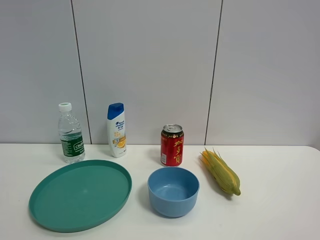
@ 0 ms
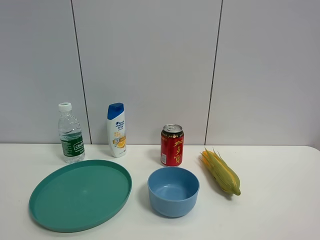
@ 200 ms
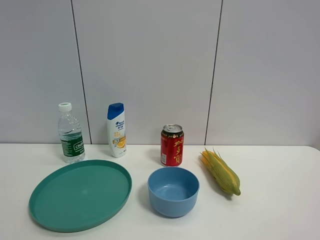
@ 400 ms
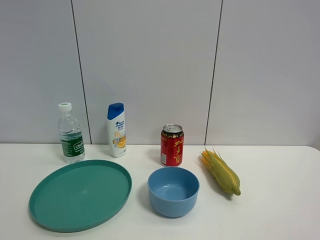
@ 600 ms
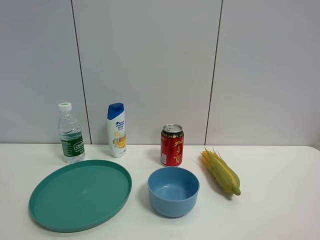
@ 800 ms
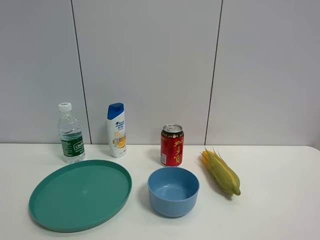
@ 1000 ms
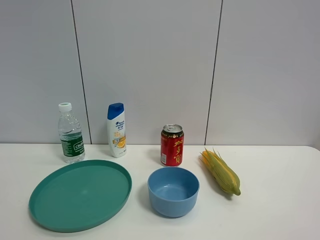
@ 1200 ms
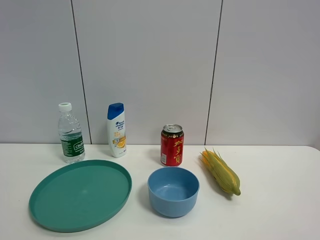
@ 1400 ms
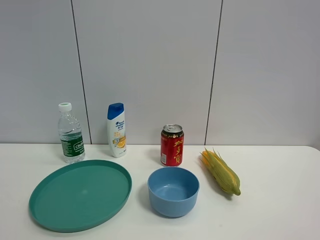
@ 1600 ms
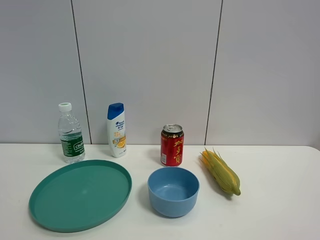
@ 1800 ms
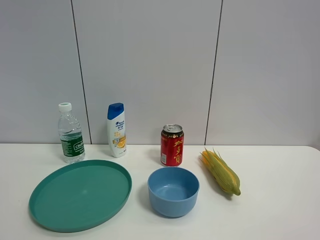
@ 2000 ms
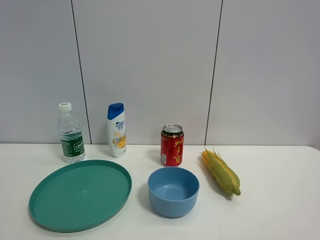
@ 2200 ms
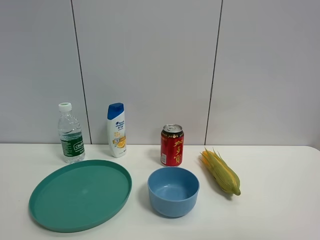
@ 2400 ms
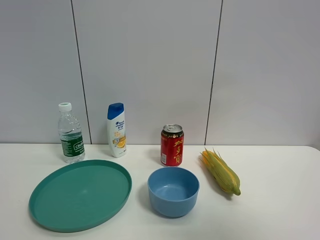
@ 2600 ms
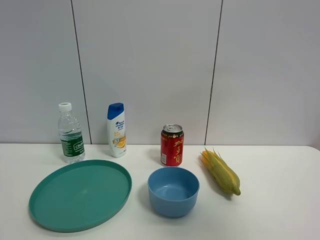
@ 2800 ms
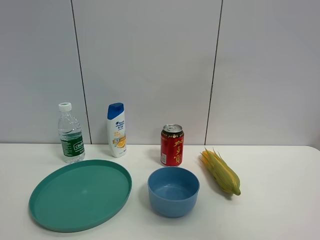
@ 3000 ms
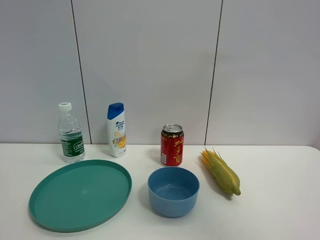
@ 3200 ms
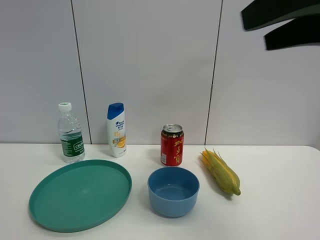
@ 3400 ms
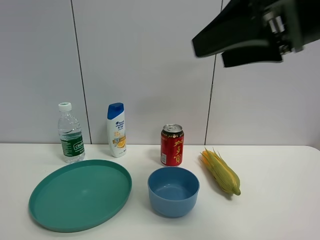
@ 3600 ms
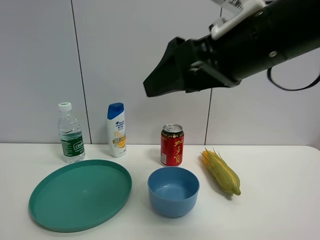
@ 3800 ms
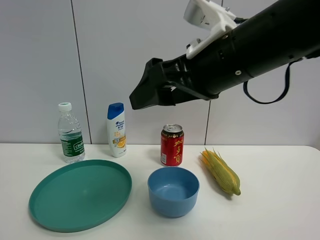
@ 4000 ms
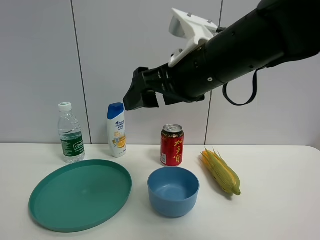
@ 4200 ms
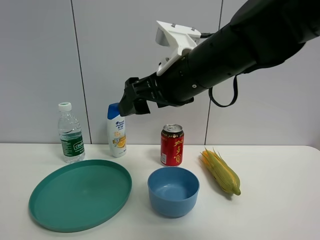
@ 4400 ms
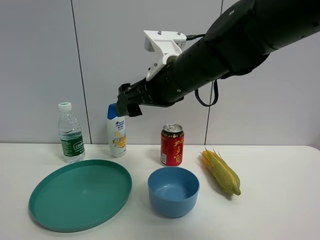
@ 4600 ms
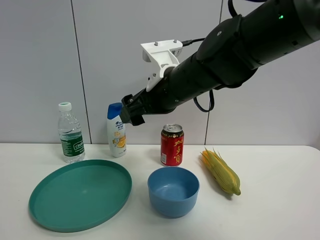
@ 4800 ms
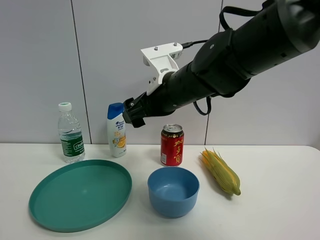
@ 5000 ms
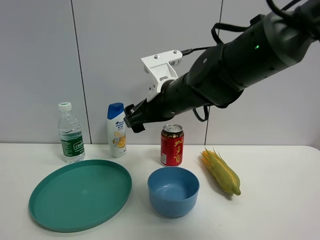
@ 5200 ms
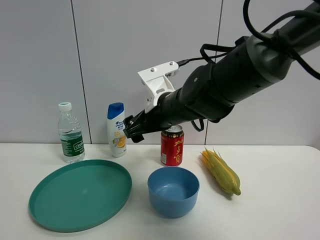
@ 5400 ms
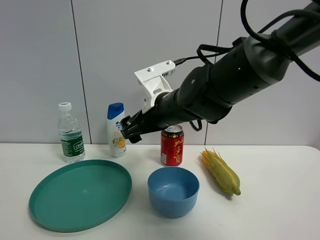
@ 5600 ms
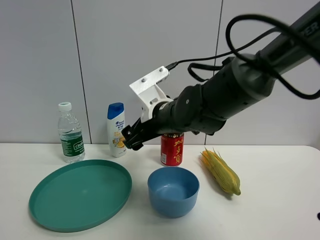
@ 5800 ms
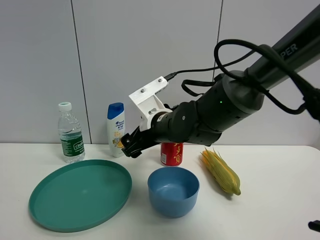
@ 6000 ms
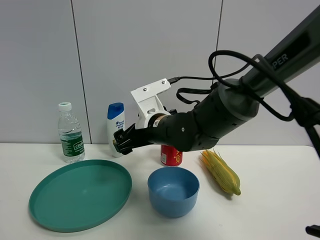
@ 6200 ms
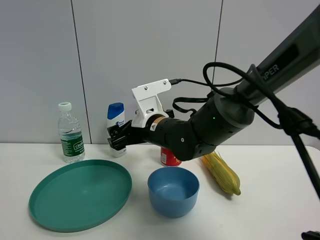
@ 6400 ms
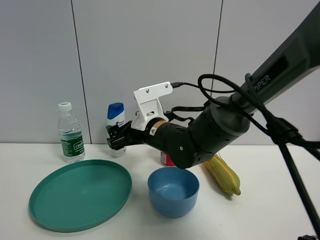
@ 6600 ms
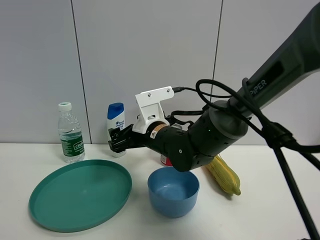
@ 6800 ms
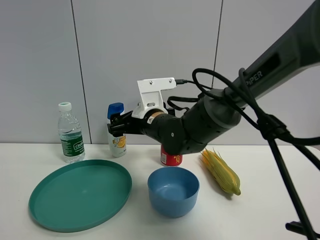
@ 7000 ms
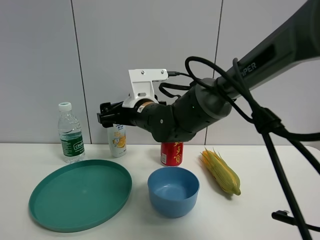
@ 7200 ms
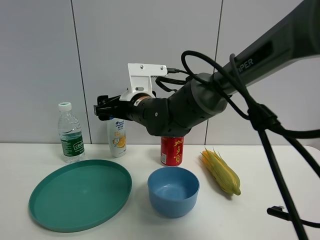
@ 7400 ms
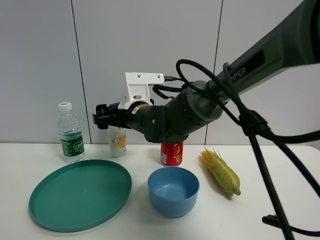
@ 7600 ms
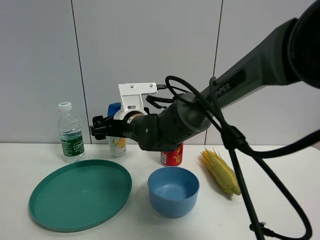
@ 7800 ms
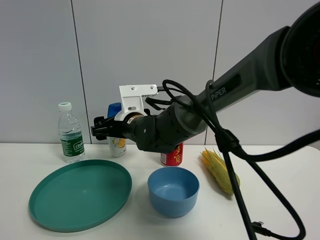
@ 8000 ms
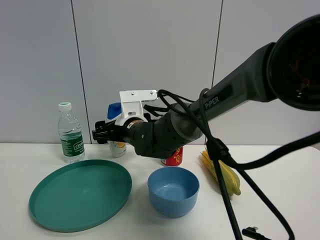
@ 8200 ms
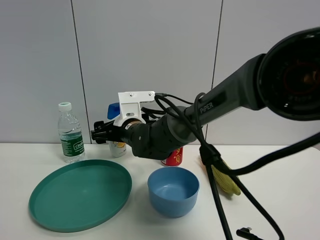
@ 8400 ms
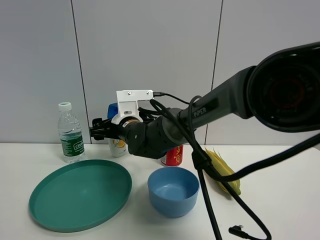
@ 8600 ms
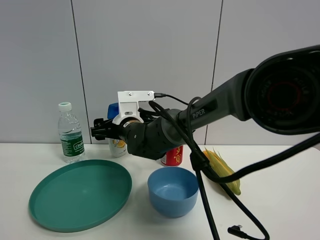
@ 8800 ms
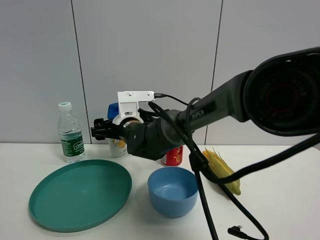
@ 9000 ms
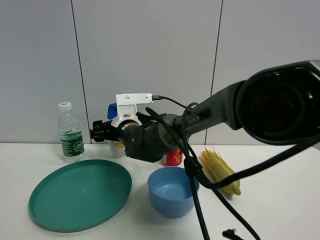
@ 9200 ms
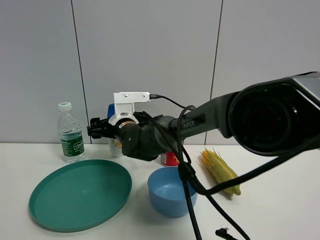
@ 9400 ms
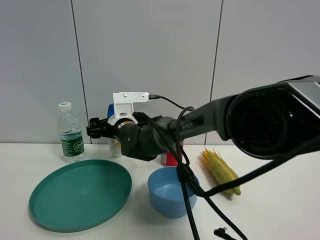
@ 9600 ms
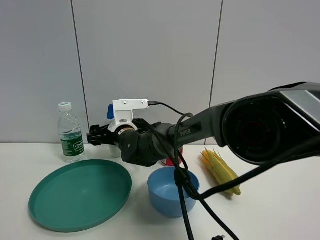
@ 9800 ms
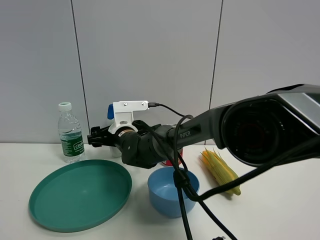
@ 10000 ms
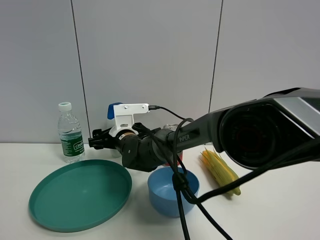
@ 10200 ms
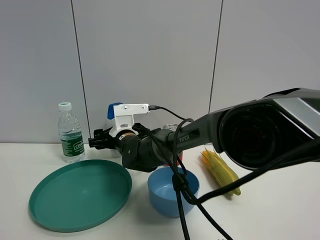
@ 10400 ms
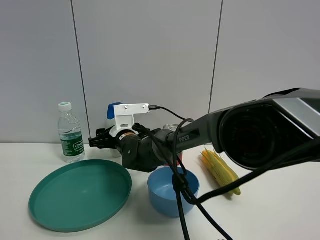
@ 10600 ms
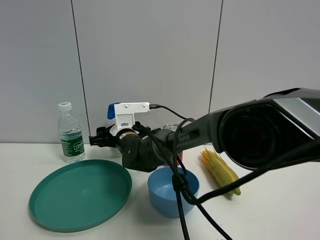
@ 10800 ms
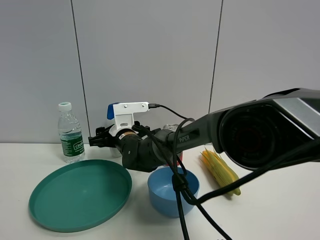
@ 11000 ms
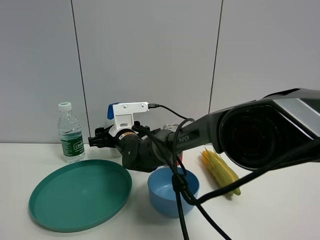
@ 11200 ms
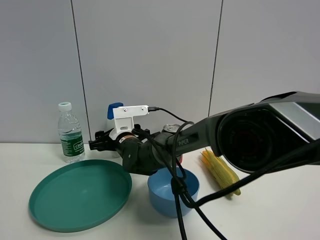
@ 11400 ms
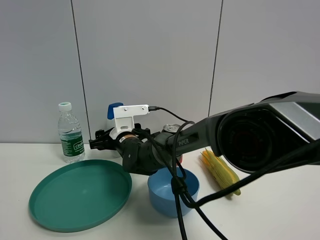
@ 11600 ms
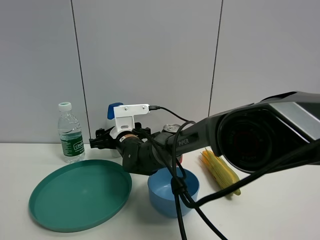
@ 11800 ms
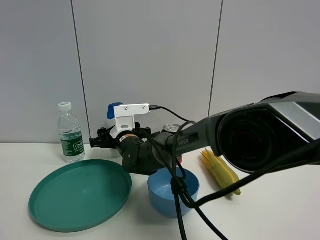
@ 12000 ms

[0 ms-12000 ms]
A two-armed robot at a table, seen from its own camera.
Task of the whole recording: the gripper move the object.
0 ms to 1600 ms: Both grippers stay put.
1600 ms to 3000 ms: The right gripper shifts some 20 cm forward and upward.
3000 ms to 4400 ms: The right gripper heads to the left, forward and downward, covering some 30 cm.
4400 ms to 6000 ms: The right gripper travels downward and forward by roughly 15 cm.
6000 ms to 7600 ms: The right gripper goes approximately 5 cm to the left.
7600 ms to 9000 ms: The right gripper moves some 5 cm.
10400 ms to 12000 ms: Neither gripper changes place.

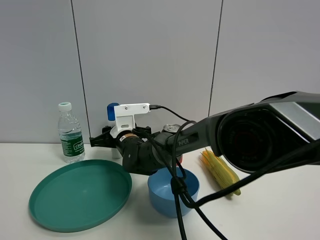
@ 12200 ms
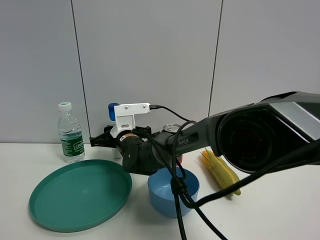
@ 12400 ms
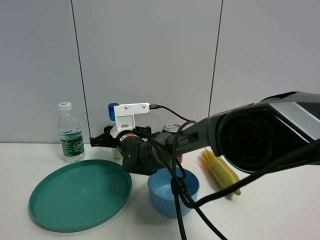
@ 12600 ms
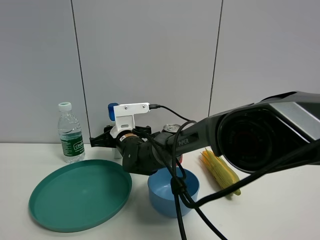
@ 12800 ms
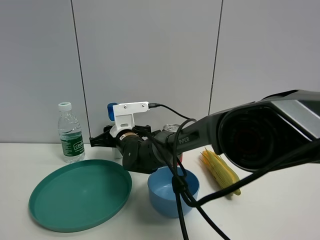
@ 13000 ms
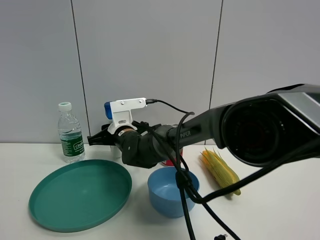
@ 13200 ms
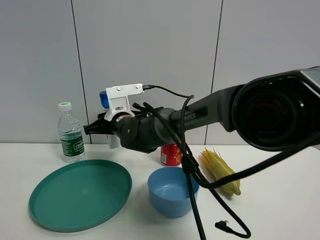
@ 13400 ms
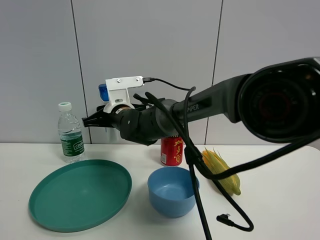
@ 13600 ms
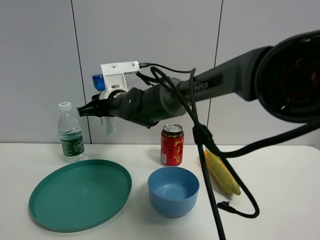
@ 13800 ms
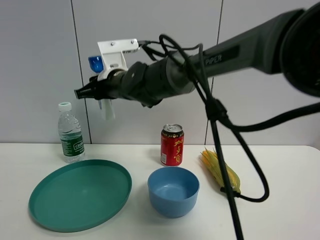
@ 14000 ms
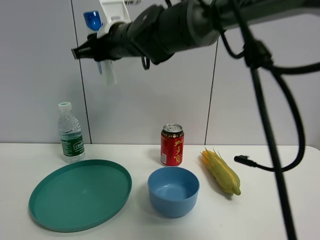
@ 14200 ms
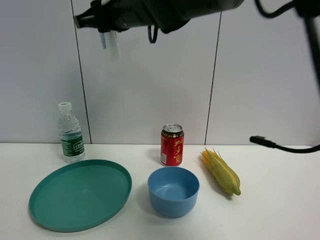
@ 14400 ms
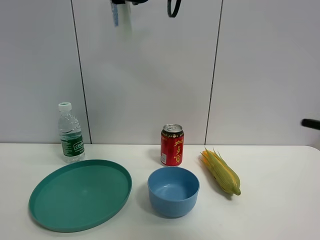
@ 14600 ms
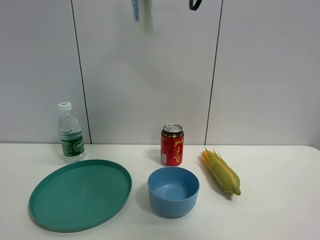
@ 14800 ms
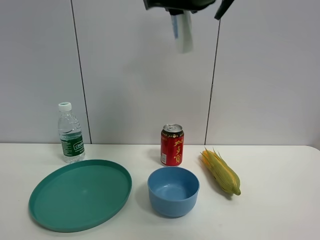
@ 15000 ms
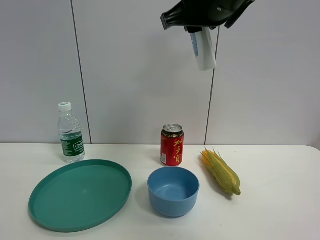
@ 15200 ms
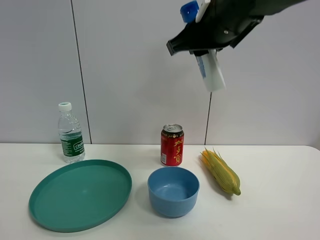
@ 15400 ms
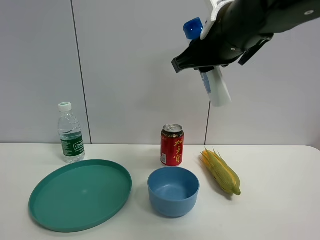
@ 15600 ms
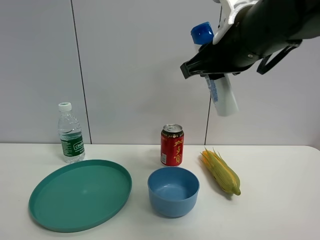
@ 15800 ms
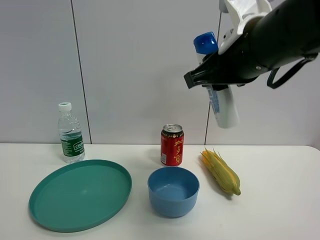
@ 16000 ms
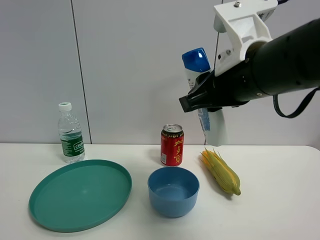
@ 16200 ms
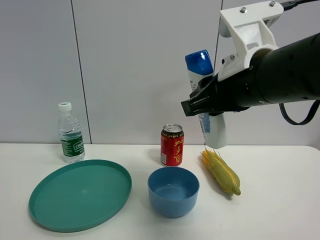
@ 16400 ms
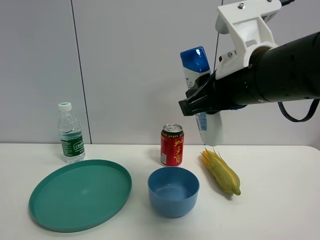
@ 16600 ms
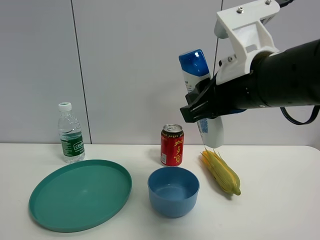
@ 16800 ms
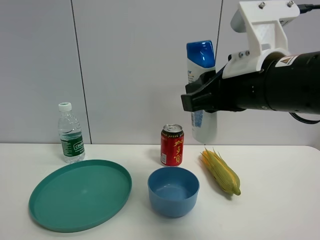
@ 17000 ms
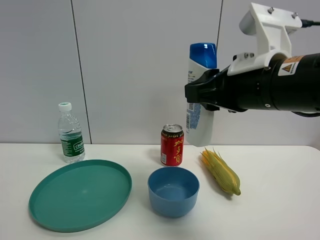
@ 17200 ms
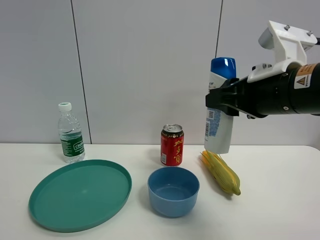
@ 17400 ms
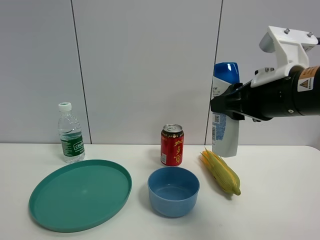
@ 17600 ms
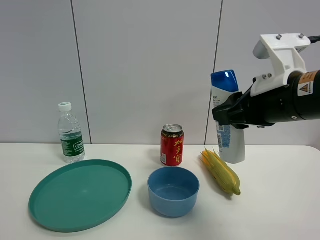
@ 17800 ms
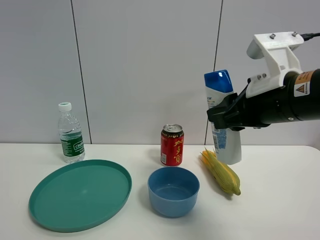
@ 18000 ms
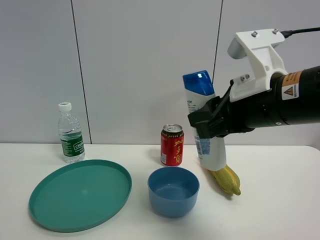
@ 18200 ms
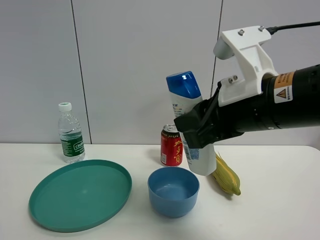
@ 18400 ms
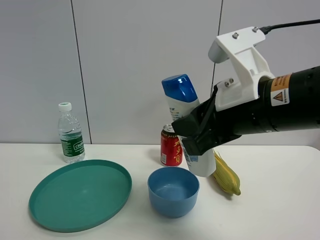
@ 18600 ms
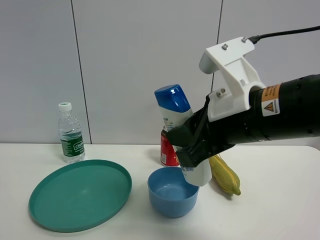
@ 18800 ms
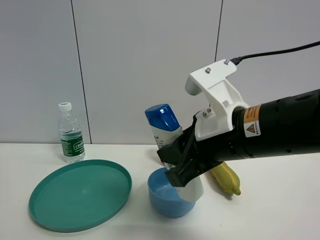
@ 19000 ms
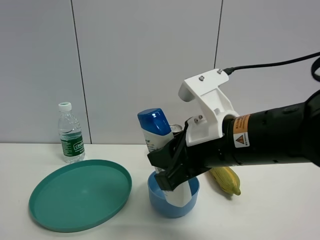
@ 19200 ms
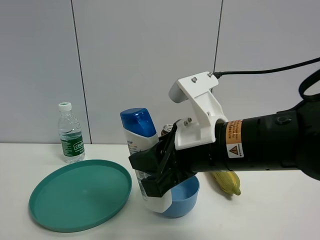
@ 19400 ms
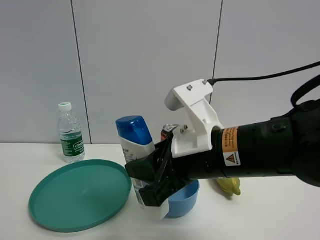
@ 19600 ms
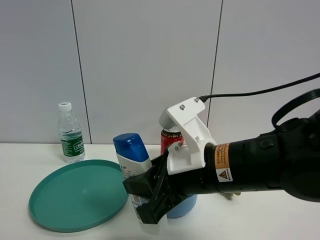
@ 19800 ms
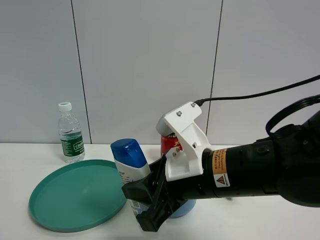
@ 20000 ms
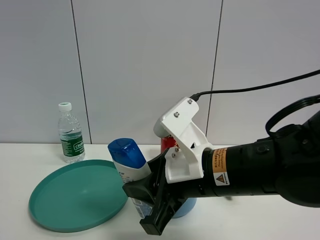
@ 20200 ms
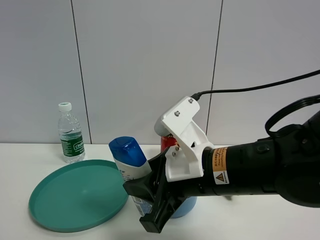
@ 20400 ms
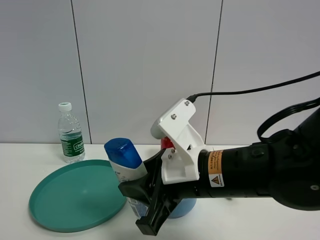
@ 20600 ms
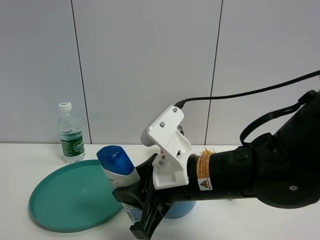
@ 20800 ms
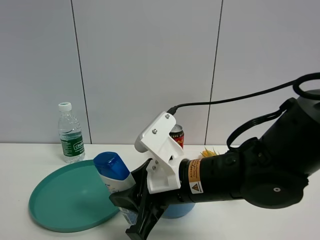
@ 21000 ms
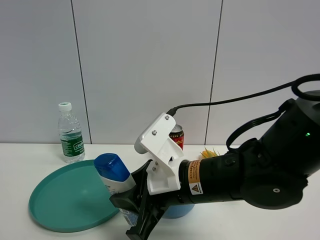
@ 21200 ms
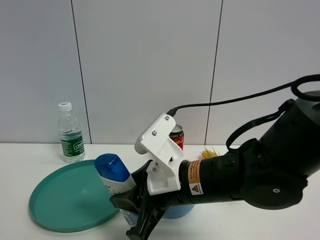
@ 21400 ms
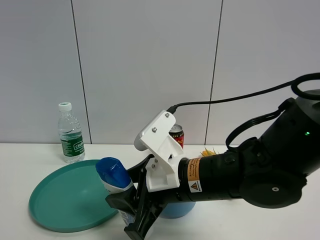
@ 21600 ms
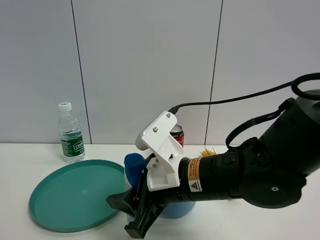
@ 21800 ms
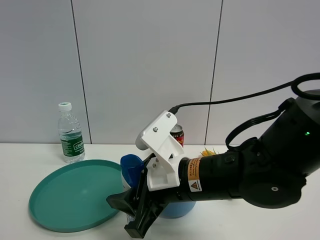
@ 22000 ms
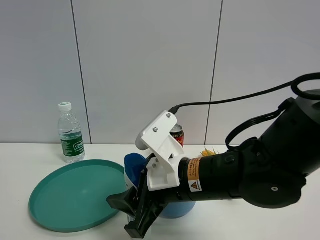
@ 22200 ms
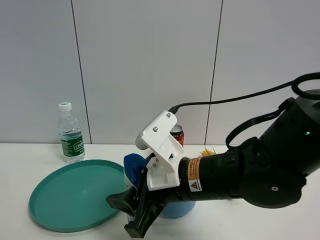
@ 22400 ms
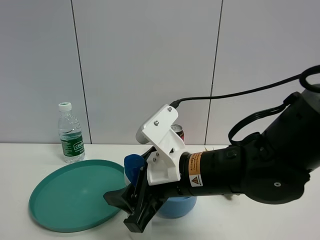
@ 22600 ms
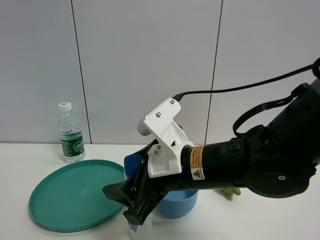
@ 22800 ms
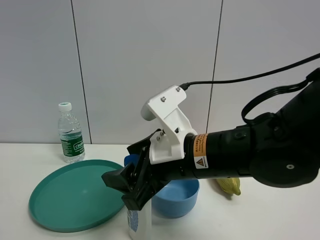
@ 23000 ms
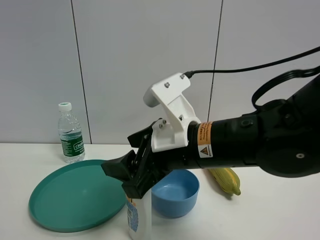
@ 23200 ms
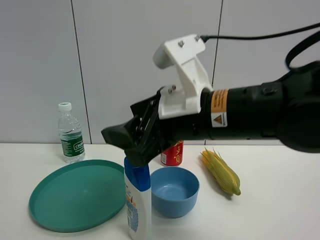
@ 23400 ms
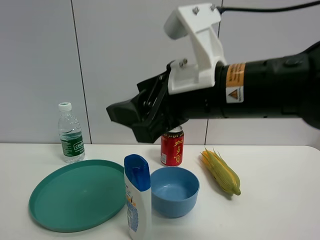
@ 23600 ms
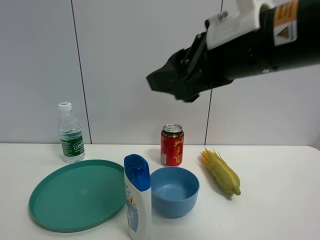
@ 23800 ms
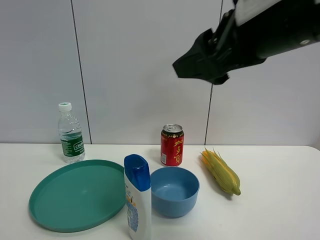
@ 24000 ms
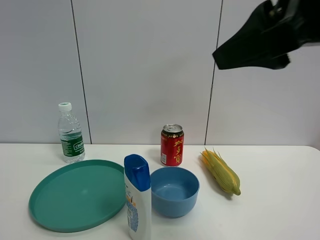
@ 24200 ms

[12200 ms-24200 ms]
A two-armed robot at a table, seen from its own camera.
Task of the whole recording: the gripper move the object.
Step, 12600 ms to 22800 ms: Place the shampoo on the table with the right gripper.
12200 ms to 13800 ms: The right gripper shifts some 10 cm upward.
13800 ms to 15200 ms: The right gripper heads upward, to the right and backward, covering approximately 30 cm.
15200 ms to 16600 ms: The right gripper travels downward and backward by some 10 cm.
18200 ms to 19800 ms: The right gripper is displaced downward and to the left by approximately 10 cm.
19800 ms to 21200 ms: There are only small adjustments of the grippers.
21200 ms to 22600 ms: The right gripper opens up.
22600 ms to 24200 ms: The right gripper shifts approximately 25 cm upward and to the right.
